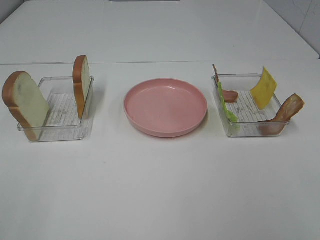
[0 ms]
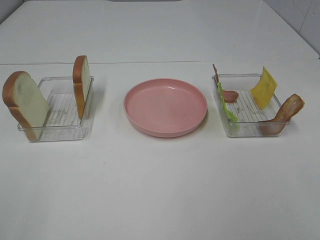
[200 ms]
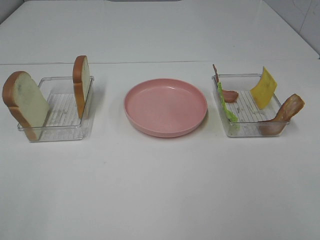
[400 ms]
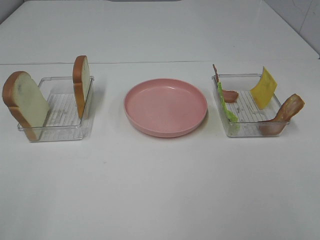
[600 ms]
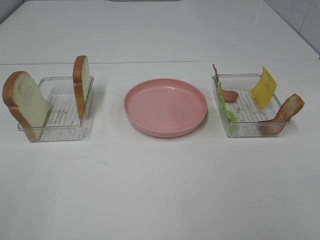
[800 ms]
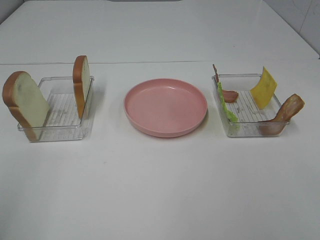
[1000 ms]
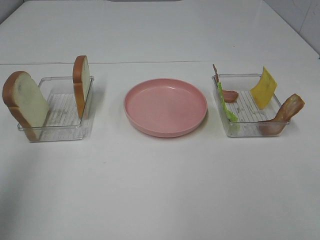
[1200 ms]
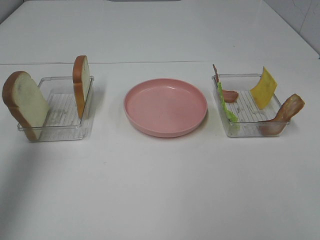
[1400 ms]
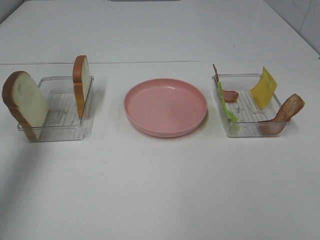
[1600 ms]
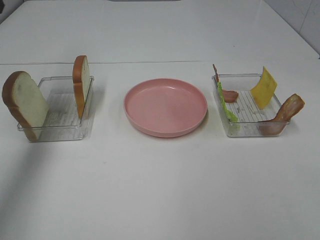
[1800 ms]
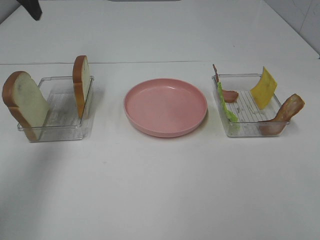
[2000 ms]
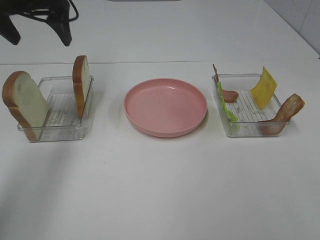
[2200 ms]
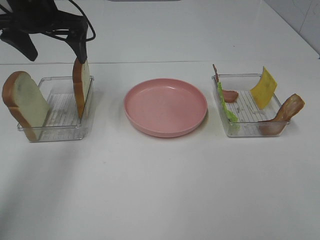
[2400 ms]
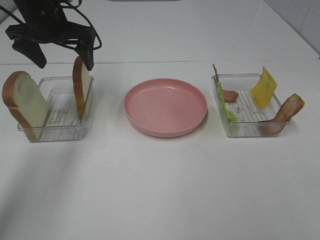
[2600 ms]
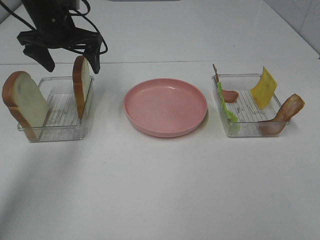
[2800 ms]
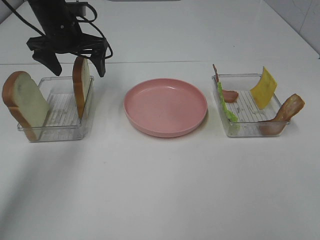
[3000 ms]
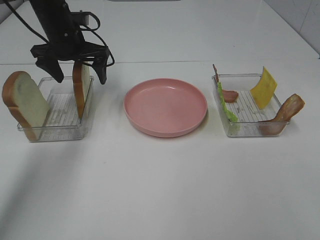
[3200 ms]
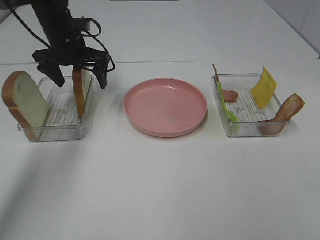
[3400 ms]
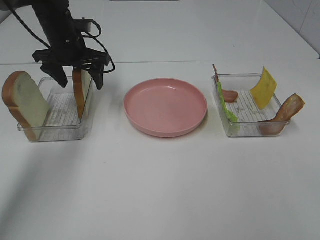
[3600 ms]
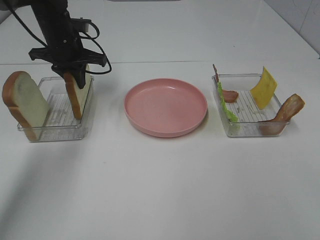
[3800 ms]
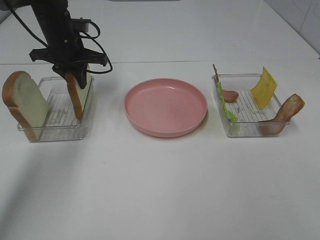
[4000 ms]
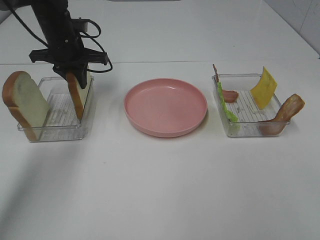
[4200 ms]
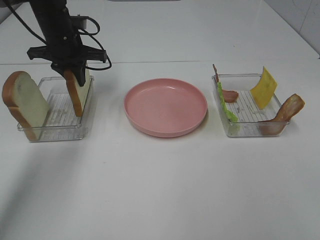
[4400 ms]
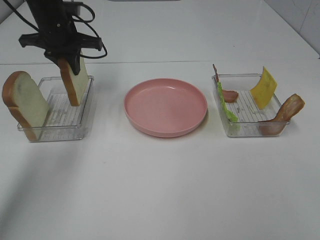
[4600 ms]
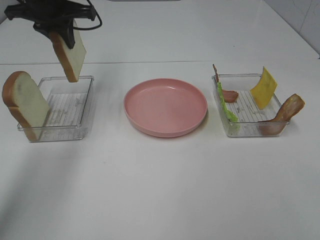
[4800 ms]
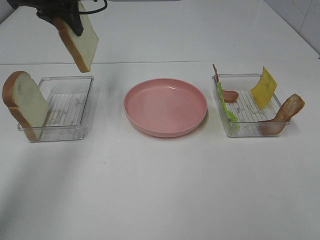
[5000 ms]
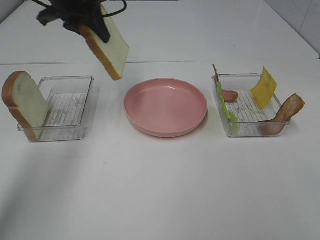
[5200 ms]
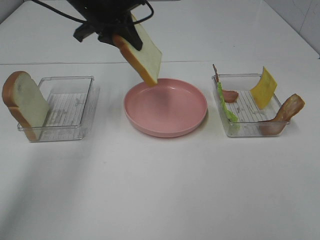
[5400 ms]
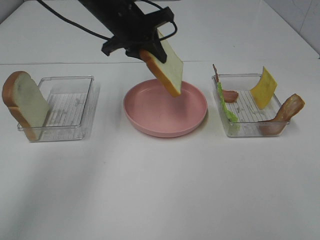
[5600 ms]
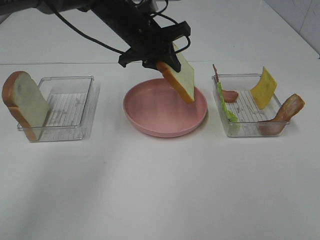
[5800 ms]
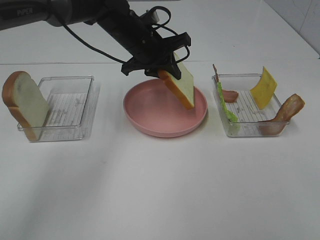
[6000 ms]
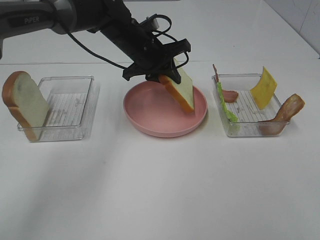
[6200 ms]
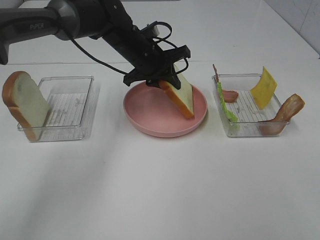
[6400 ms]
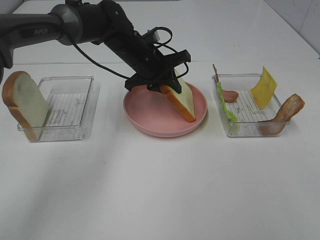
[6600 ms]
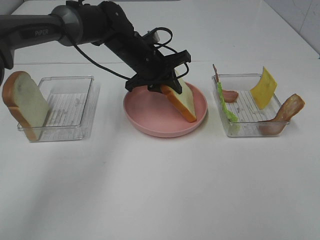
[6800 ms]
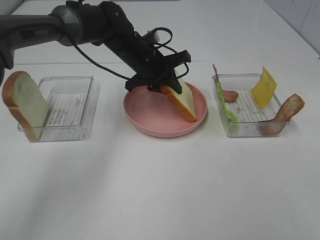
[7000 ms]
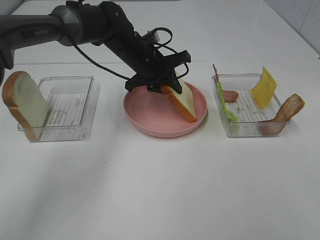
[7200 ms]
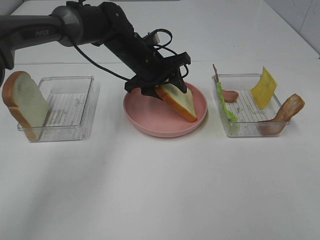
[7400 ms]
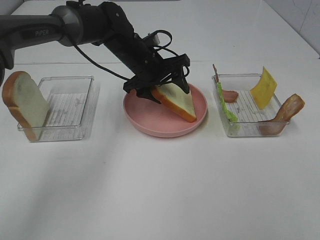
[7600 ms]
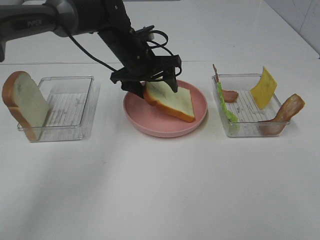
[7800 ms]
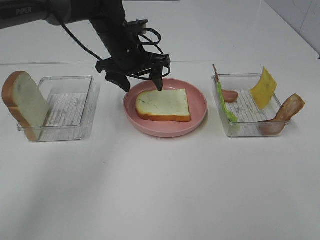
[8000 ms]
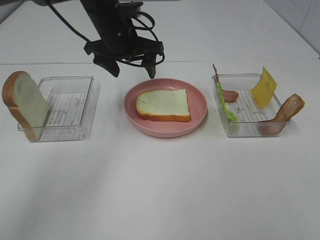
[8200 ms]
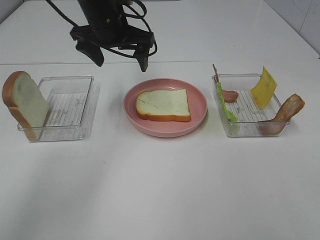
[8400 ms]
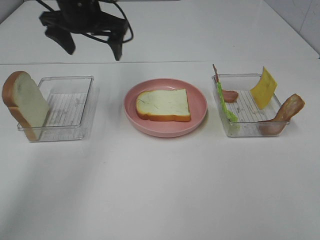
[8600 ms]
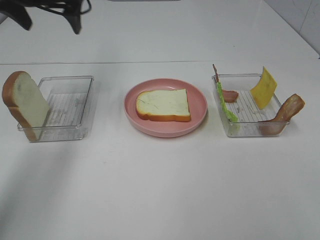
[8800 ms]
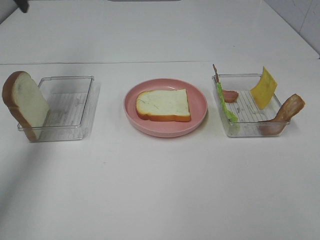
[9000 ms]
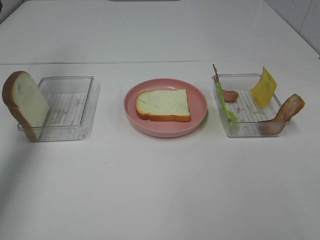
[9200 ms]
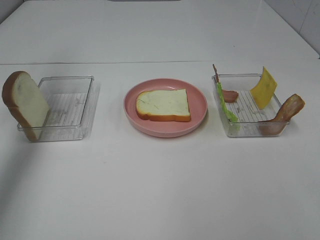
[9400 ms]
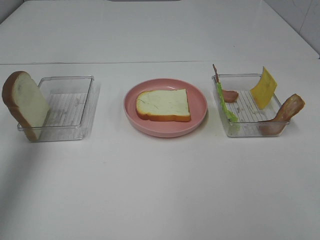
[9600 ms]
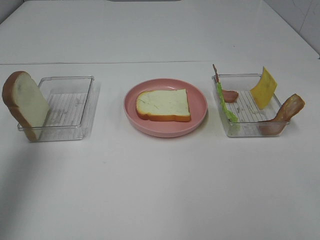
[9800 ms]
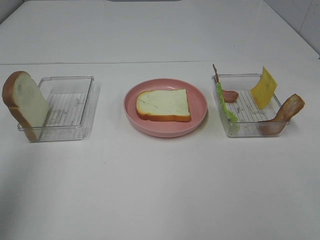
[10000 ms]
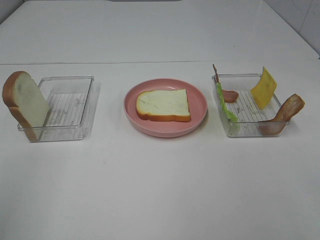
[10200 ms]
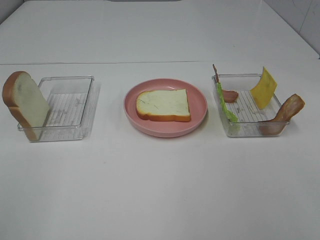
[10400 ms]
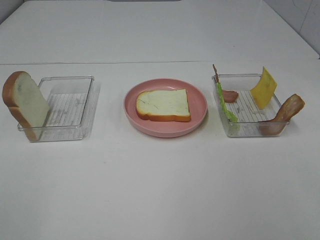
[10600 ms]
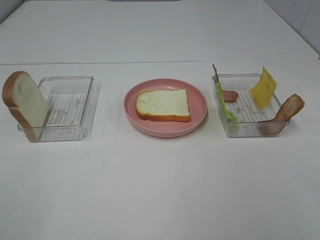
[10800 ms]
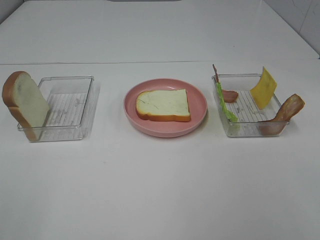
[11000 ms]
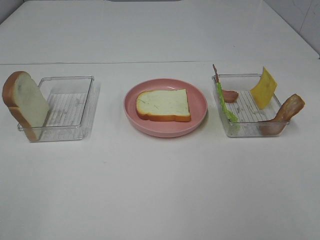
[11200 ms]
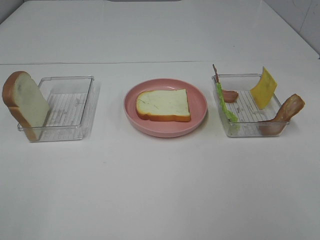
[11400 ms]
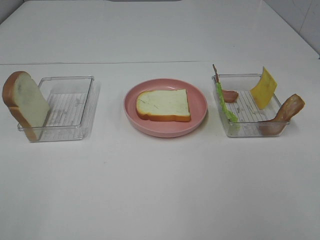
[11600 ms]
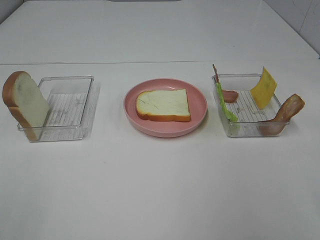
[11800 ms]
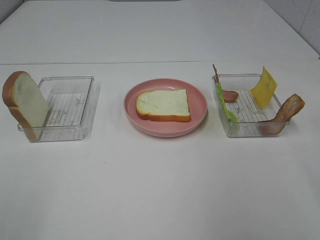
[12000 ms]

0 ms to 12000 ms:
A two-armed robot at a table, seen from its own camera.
Task of the whole recording: Make sandwiches.
Step, 0 ms to 4200 ms: Left hand:grab the bread slice.
Step, 4400 ms to 8200 ms: Left hand:place the bread slice on the plate.
0 ms to 1600 ms: The left gripper shifts some 35 cm forward.
1600 ms to 3000 ms: The left gripper is displaced downward, to the right and forward by about 25 cm.
3000 ms to 4400 ms: The left gripper closes its fingers.
4400 ms to 6000 ms: The left gripper moves to the right, approximately 15 cm.
6000 ms to 7600 ms: The left gripper opens up.
7600 ms to 9000 ms: The left gripper is displaced to the left and upward by about 35 cm, and opens its fingers.
9000 ms to 10400 ms: The left gripper heads backward, covering approximately 40 cm.

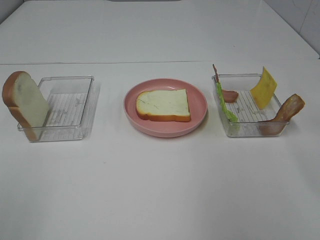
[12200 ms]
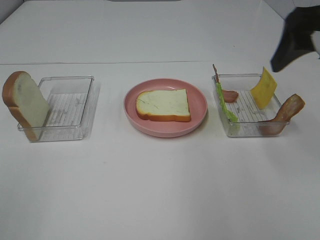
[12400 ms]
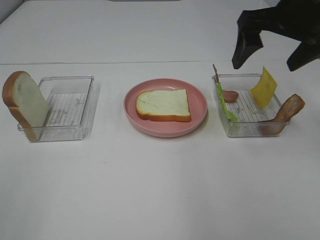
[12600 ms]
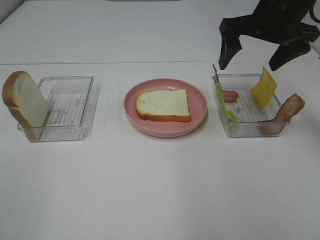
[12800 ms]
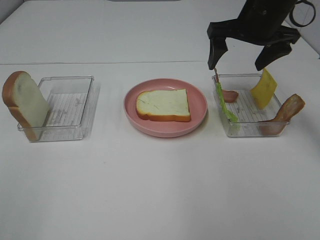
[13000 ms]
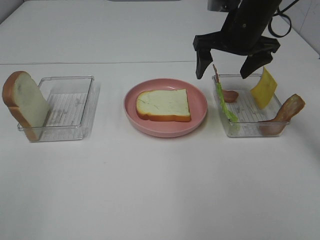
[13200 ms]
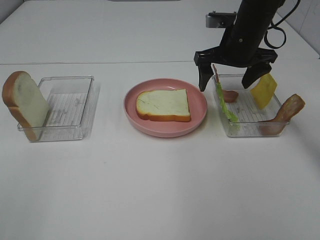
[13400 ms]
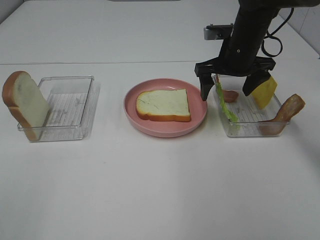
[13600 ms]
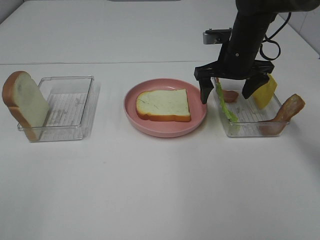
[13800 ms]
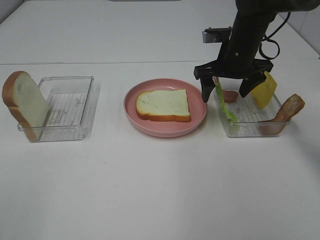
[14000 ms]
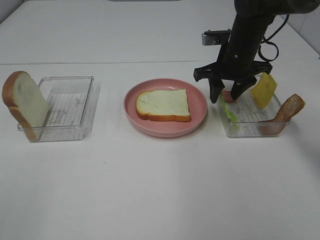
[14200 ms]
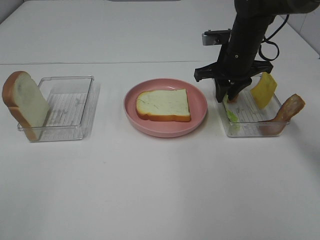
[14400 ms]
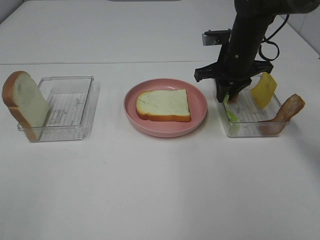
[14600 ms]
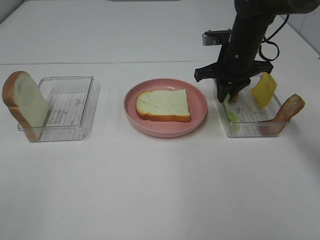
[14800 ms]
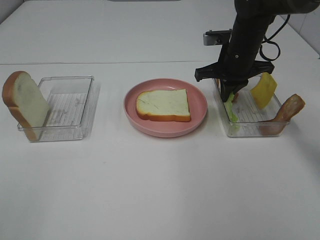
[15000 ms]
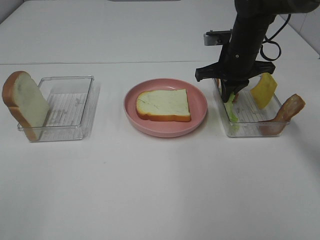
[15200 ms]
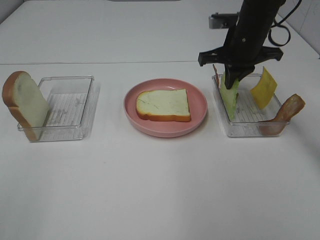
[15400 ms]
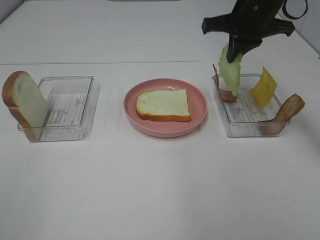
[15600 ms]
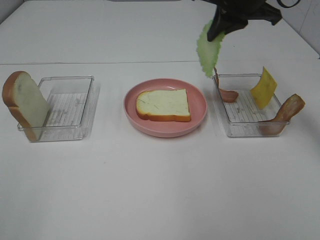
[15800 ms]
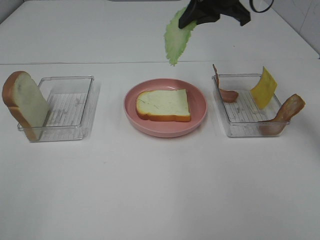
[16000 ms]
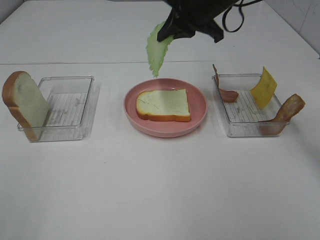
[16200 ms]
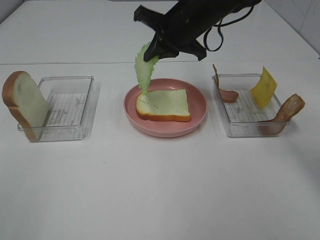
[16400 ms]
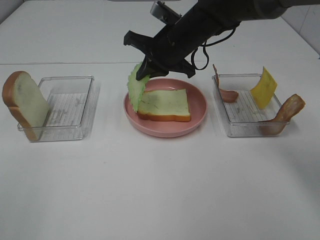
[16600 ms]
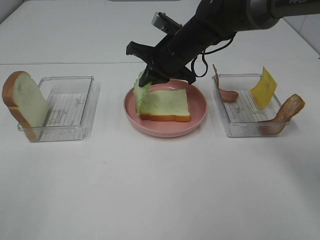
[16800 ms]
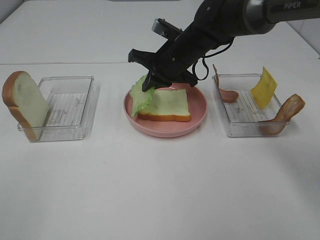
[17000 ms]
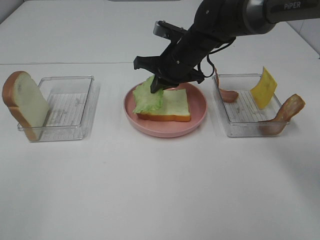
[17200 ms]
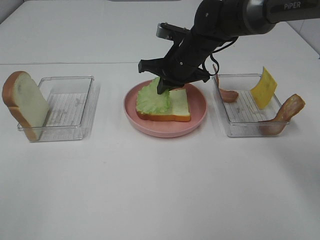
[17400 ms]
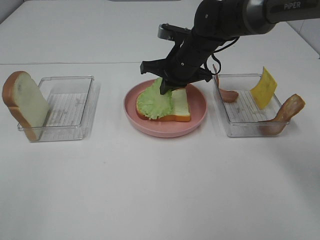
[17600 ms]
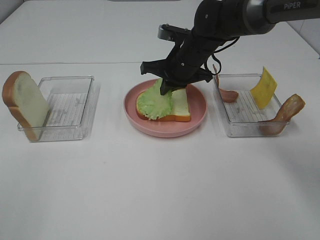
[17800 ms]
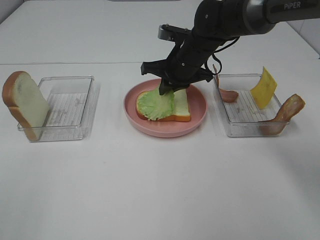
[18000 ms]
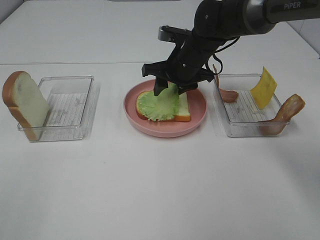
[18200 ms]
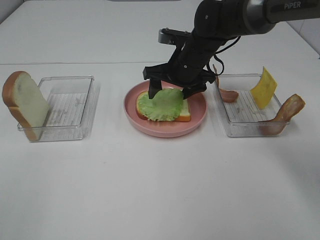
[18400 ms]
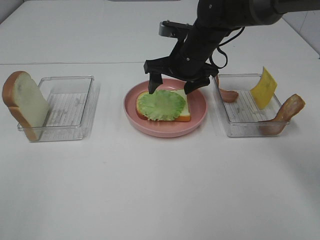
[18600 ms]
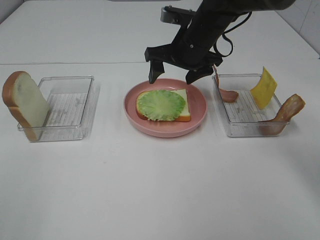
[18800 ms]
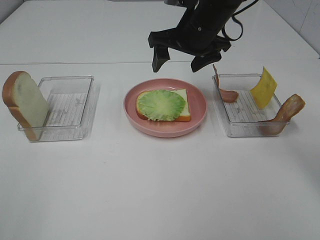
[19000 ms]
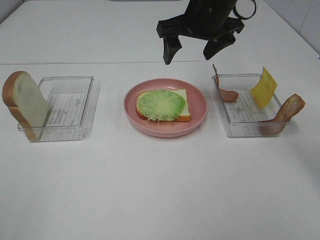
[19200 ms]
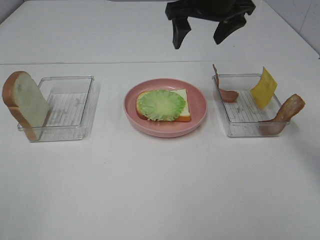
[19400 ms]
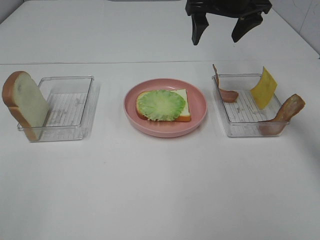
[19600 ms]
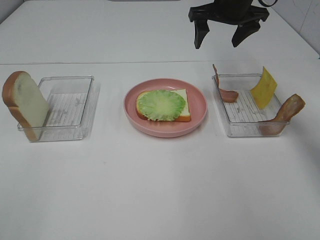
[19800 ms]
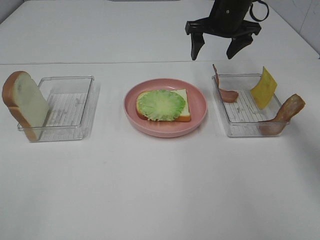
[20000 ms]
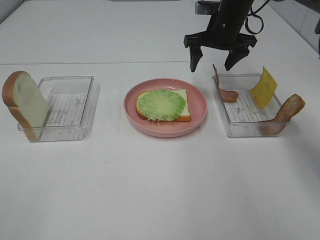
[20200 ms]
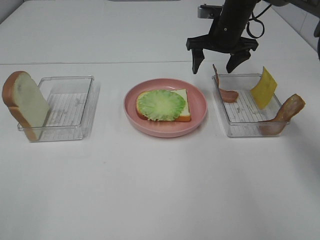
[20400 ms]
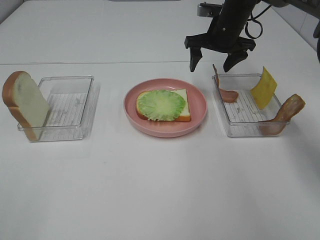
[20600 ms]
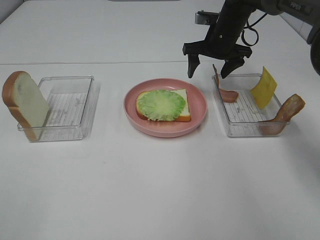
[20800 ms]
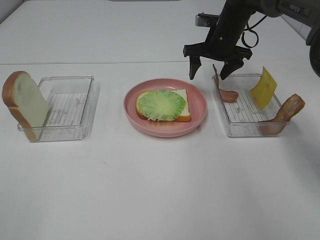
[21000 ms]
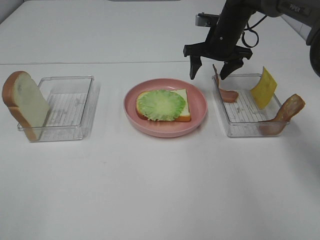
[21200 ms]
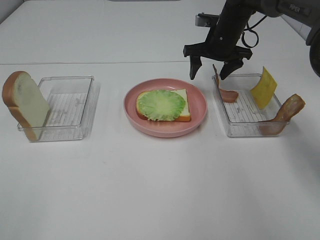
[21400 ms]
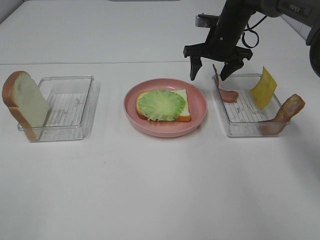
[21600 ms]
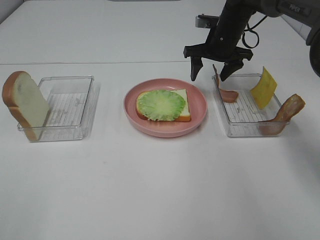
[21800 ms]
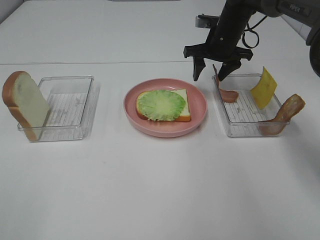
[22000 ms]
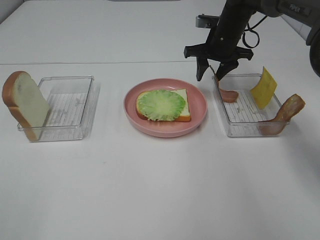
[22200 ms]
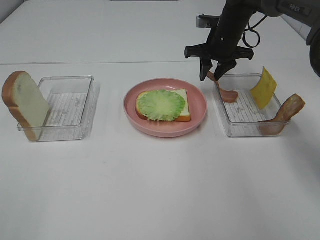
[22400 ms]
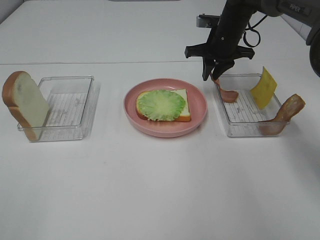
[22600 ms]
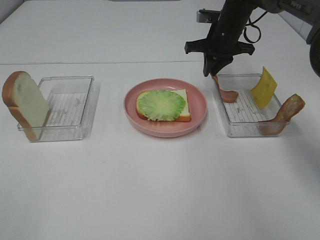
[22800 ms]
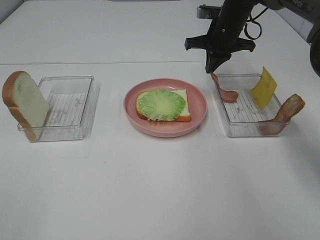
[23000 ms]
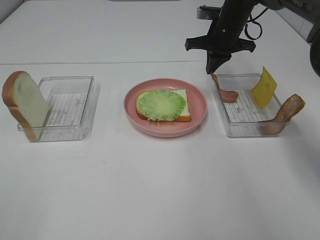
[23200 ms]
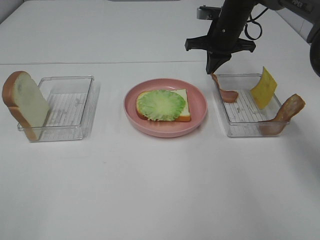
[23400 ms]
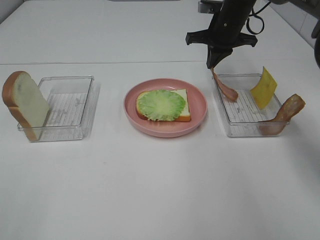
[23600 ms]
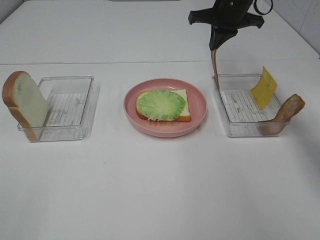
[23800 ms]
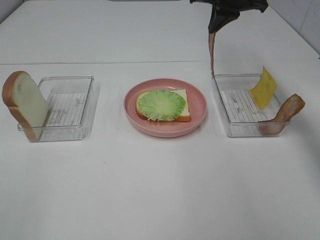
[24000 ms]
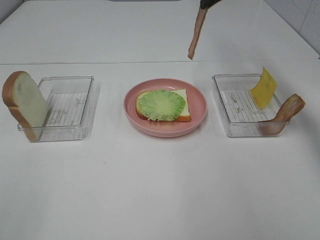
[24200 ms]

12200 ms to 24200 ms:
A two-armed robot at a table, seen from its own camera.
Task of the whole recording: Make sandwiches.
Step, 18800 ms to 23600 ms: Right hand:grab the bacon.
12200 ms to 13800 ms: The right gripper heads forward, downward and to the left, covering roughly 30 cm.
13800 ms to 15200 ms: The right gripper closes its fingers.
15200 ms to 16600 ms: The right gripper shifts some 10 cm to the left, and goes upward and returns, roughly 15 cm each way.
16600 ms to 18200 ms: The right gripper opens its fingers.
18200 ms to 19800 ms: The right gripper travels upward, to the right and forward by approximately 15 cm.
19800 ms to 21200 ms: The right gripper shifts about 10 cm downward.
21200 ms to 22600 ms: The right gripper closes.
22600 ms to 24200 ms: The right gripper is displaced upward by some 15 cm.
